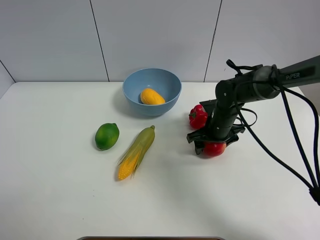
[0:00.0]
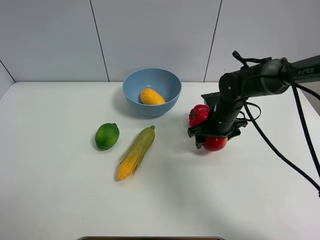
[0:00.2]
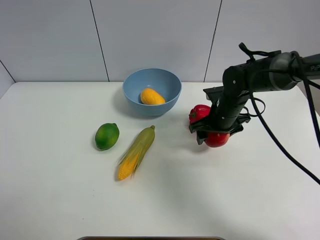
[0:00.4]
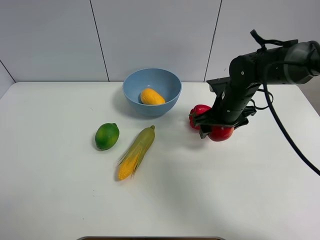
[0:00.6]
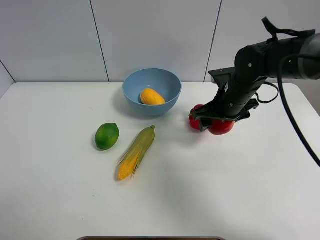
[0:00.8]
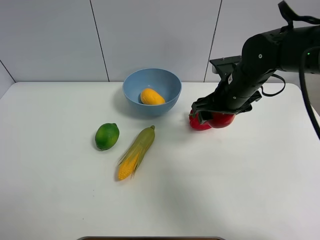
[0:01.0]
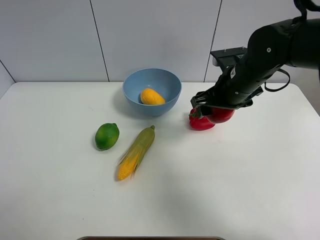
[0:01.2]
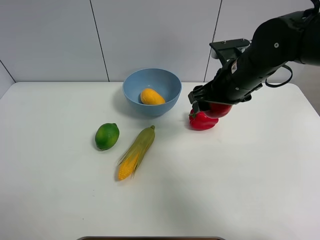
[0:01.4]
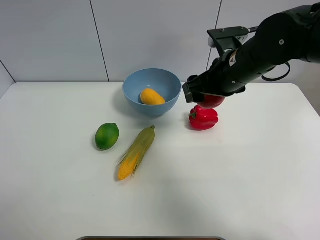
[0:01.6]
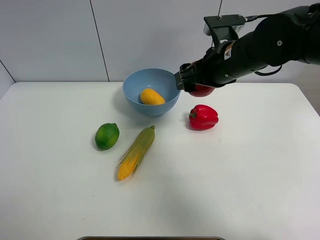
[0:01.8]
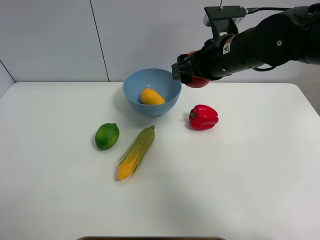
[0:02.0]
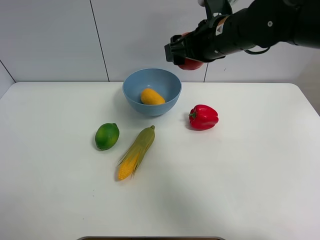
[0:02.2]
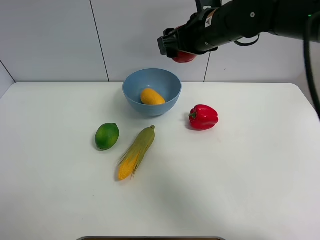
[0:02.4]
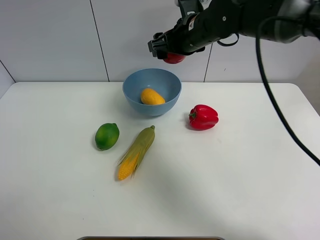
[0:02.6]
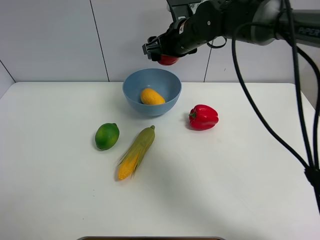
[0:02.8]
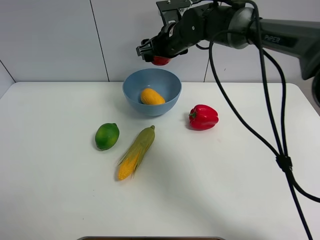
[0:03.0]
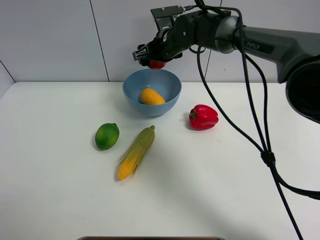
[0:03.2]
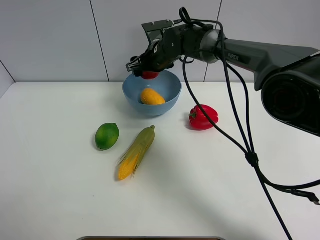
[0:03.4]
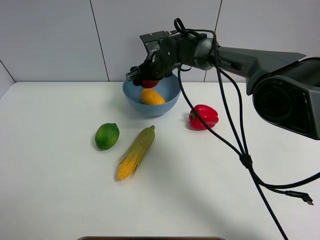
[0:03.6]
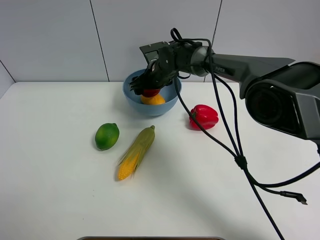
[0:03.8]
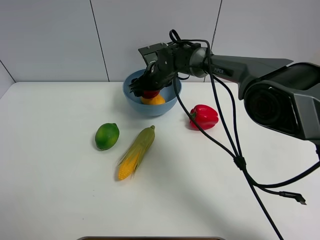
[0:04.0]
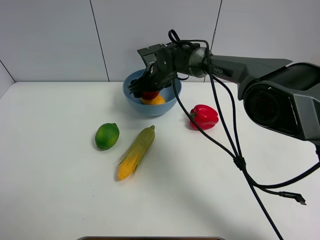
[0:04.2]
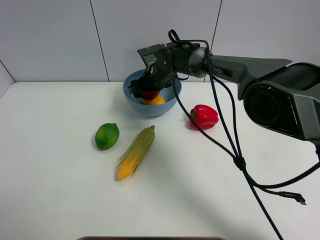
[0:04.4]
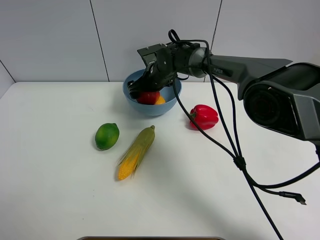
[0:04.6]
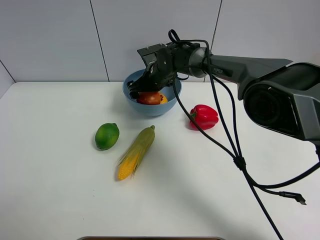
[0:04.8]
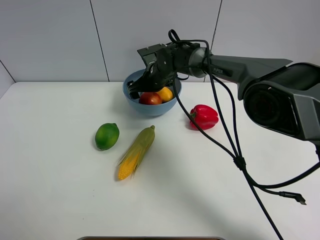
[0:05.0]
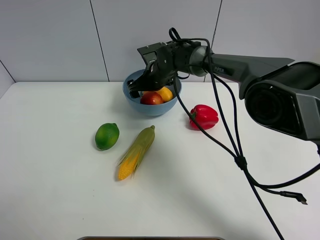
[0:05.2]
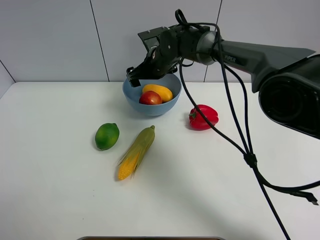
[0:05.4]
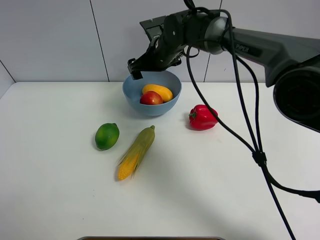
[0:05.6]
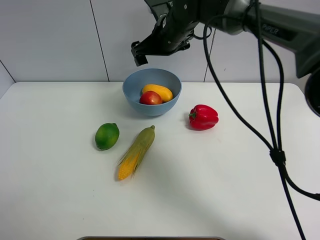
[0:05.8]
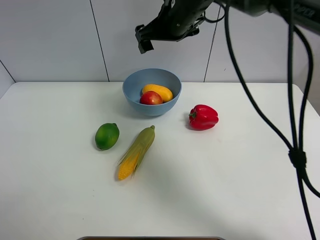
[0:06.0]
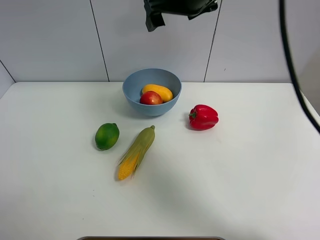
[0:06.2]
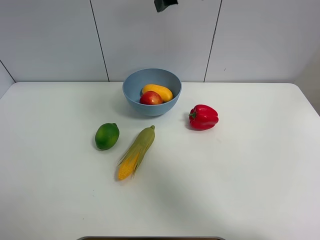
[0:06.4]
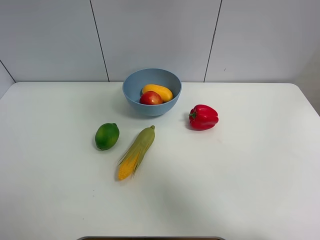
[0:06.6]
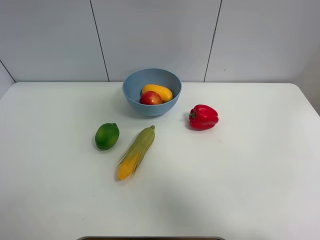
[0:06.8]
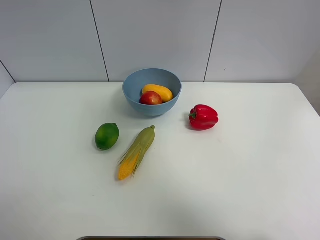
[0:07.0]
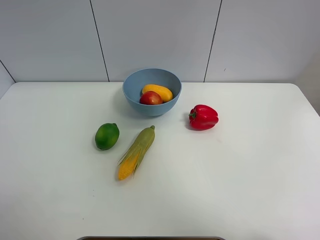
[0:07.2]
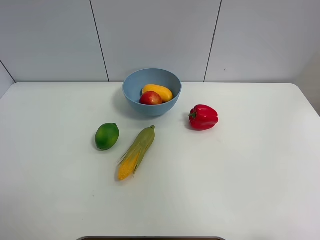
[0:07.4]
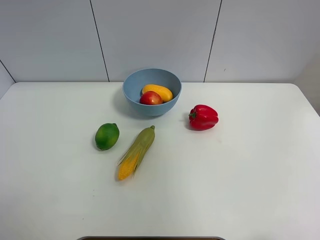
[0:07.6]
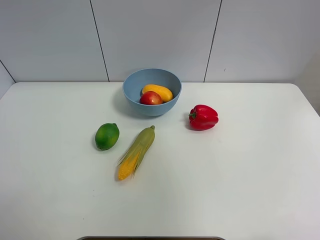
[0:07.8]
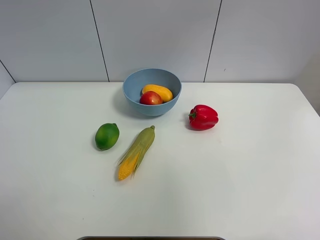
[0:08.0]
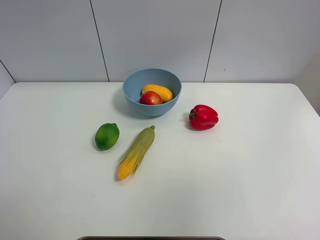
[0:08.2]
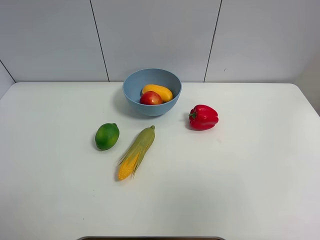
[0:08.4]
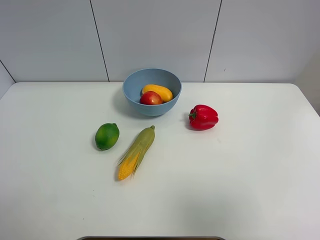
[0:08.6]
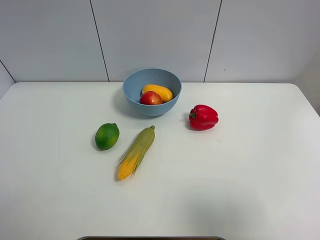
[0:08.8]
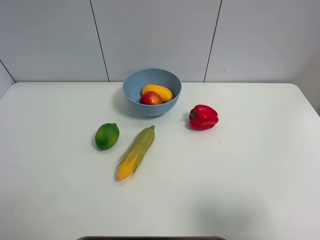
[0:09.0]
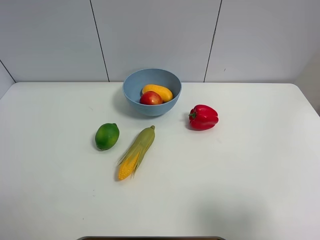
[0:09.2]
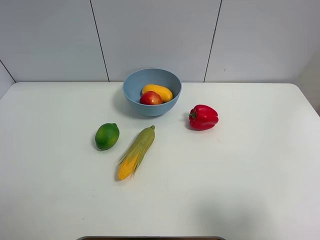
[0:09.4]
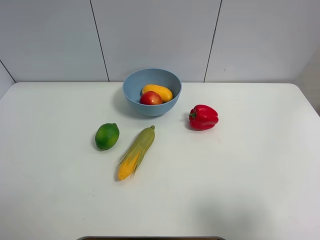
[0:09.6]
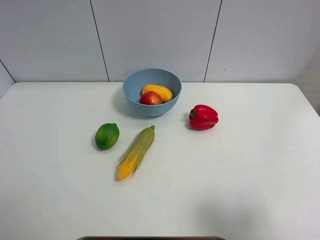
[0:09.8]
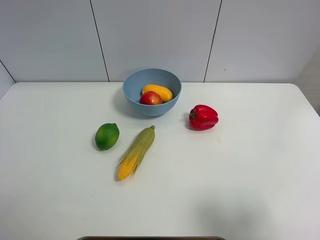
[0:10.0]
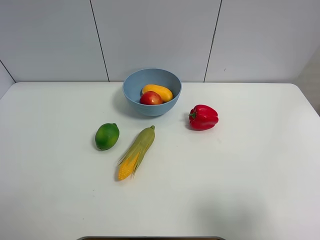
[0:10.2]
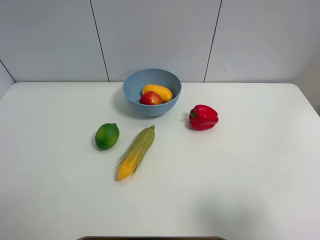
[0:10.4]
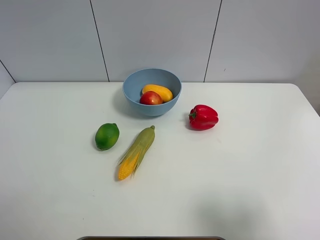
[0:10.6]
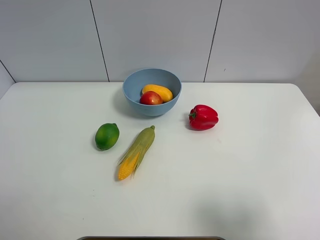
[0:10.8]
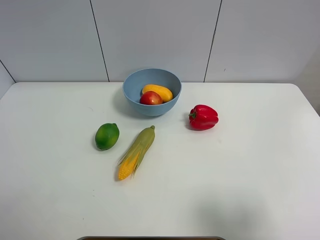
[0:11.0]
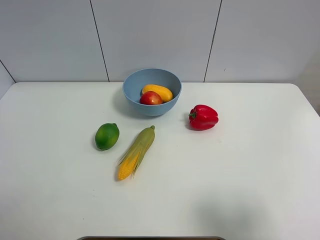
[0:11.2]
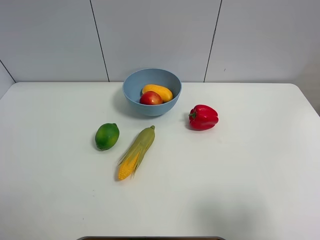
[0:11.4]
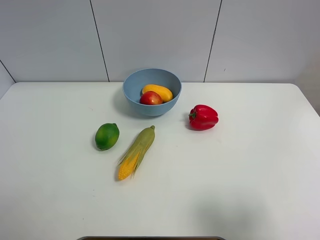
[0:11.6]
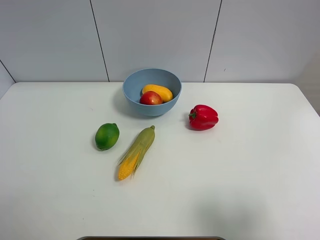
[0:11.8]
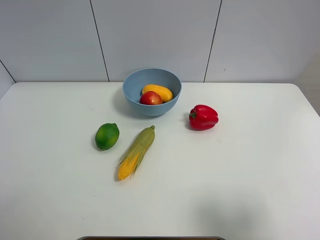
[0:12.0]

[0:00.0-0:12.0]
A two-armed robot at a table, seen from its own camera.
Task of the whole recording: Put the three fruits on the table into a bowl.
Step, 0:00.0 to 0:05.4: Place the pomegranate in the blue bowl with right gripper.
0:00.0 to 0:01.6: The right gripper shifts some 15 cm upward.
0:01.6 to 0:03.0: The right gripper shifts some 20 cm forward and to the left.
0:03.0 to 0:04.4: The right gripper shifts some 10 cm downward.
0:04.4 to 0:06.0: The right gripper moves upward, about 20 cm, and opens its fingers.
0:06.0 to 0:07.6: The right gripper goes approximately 50 cm backward, upward and to the right.
0:07.6 to 0:09.0: The right gripper heads downward, covering some 30 cm.

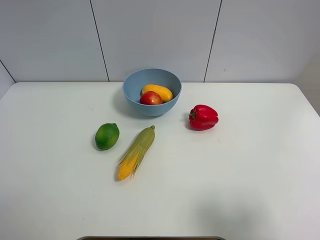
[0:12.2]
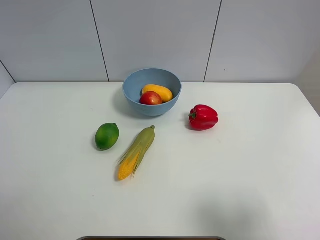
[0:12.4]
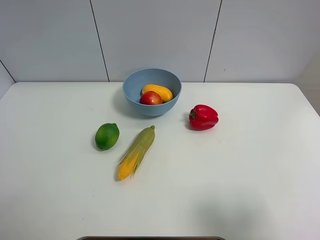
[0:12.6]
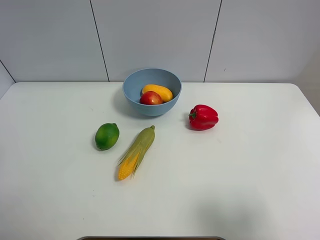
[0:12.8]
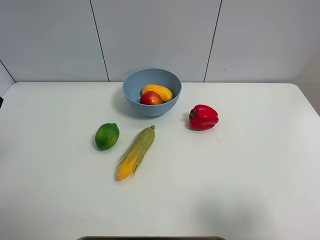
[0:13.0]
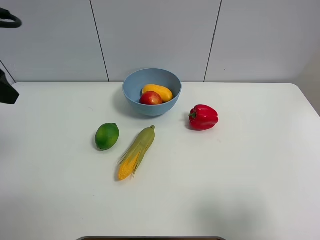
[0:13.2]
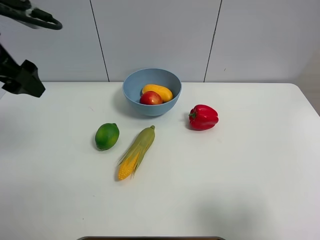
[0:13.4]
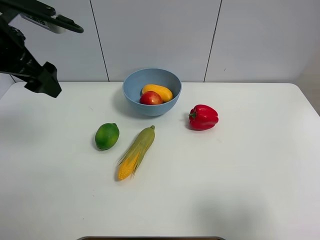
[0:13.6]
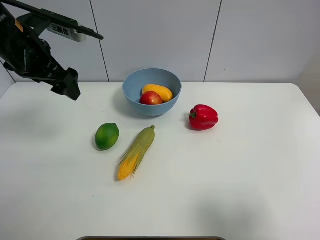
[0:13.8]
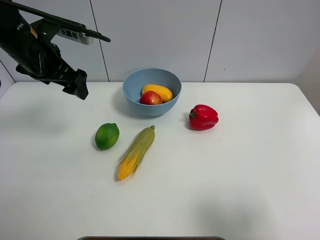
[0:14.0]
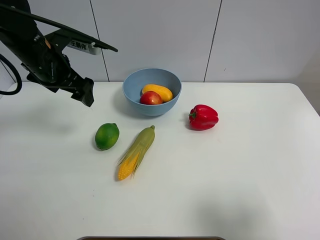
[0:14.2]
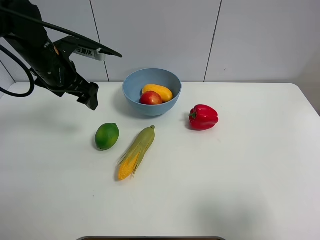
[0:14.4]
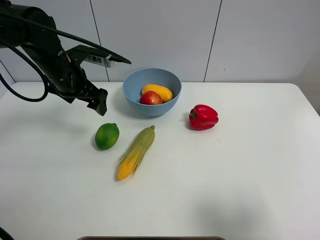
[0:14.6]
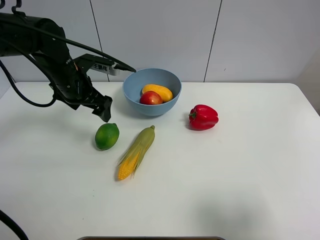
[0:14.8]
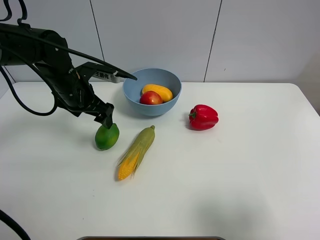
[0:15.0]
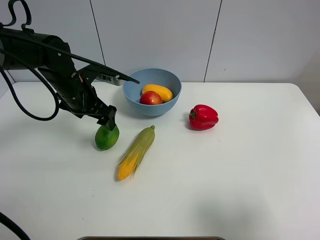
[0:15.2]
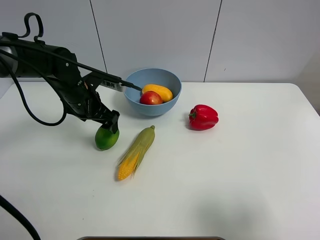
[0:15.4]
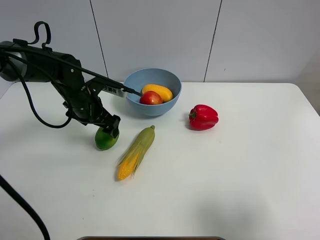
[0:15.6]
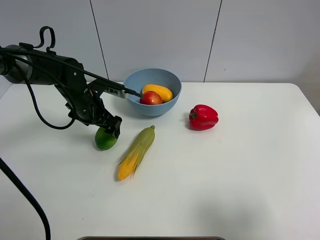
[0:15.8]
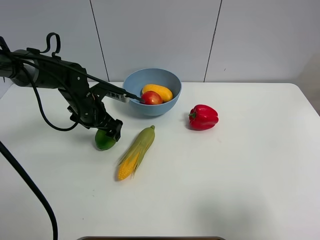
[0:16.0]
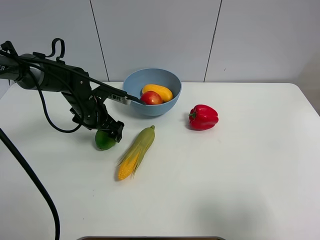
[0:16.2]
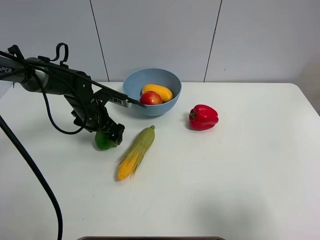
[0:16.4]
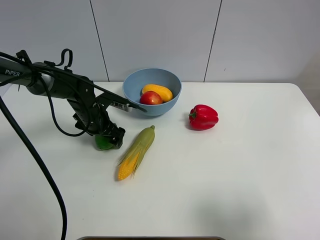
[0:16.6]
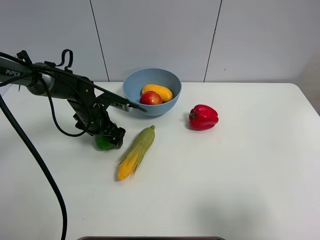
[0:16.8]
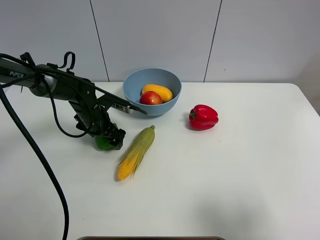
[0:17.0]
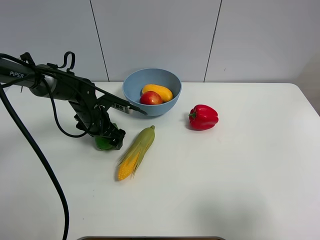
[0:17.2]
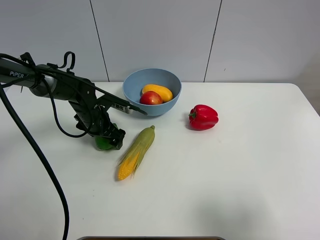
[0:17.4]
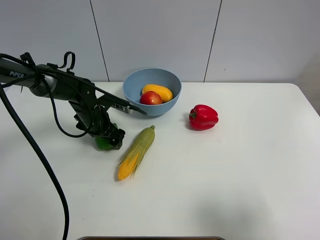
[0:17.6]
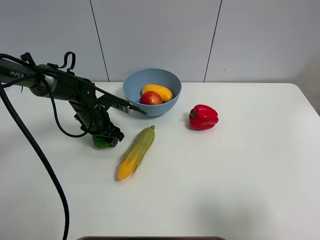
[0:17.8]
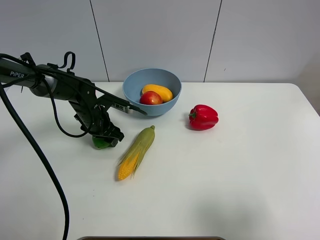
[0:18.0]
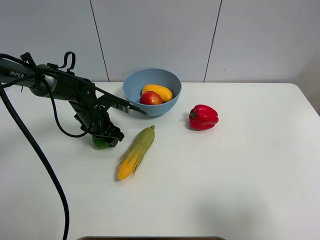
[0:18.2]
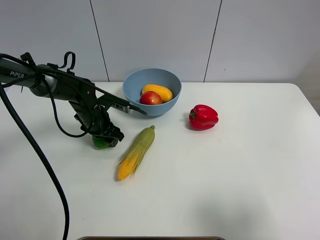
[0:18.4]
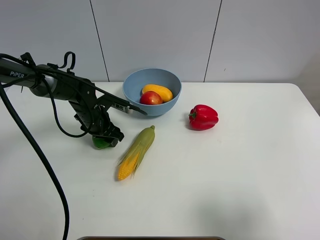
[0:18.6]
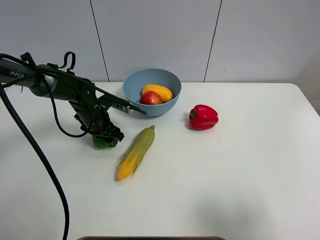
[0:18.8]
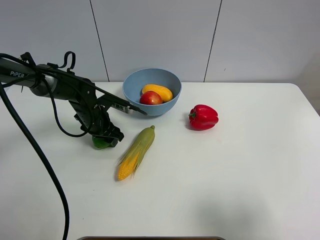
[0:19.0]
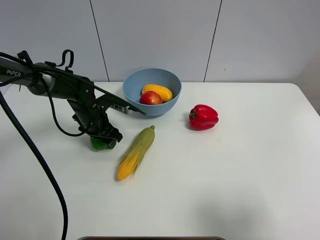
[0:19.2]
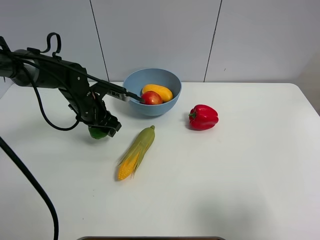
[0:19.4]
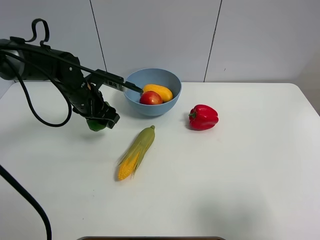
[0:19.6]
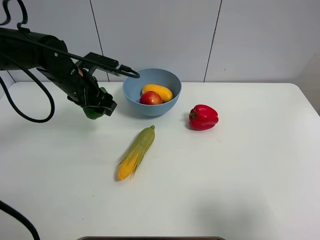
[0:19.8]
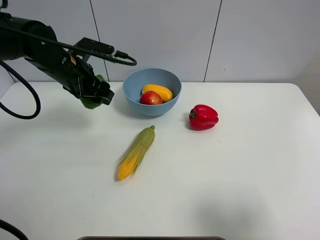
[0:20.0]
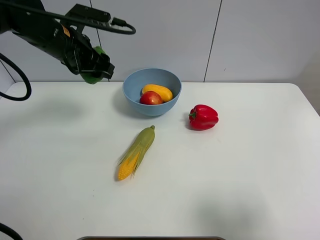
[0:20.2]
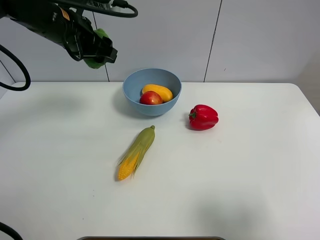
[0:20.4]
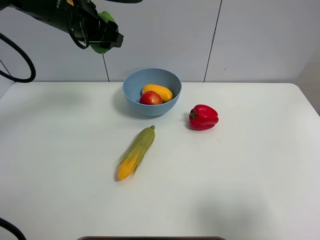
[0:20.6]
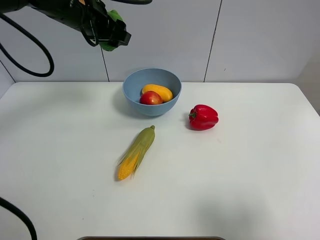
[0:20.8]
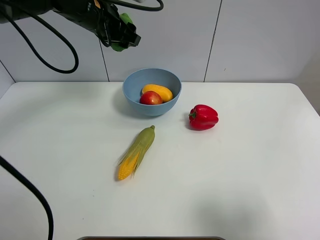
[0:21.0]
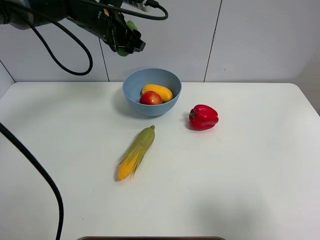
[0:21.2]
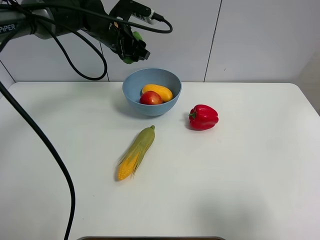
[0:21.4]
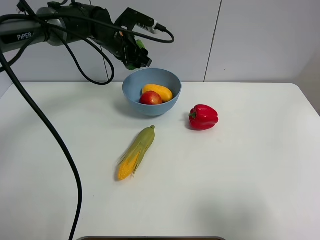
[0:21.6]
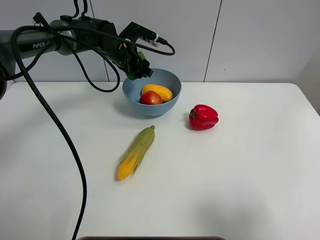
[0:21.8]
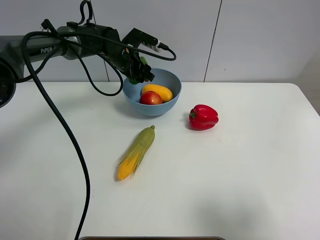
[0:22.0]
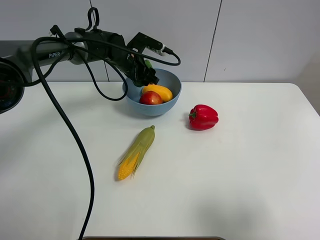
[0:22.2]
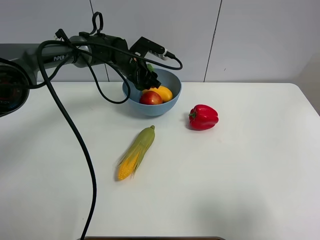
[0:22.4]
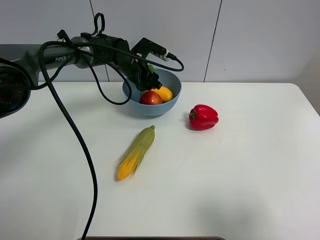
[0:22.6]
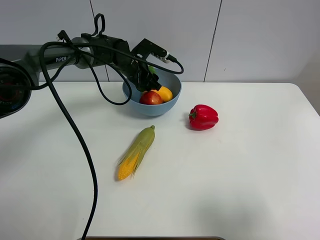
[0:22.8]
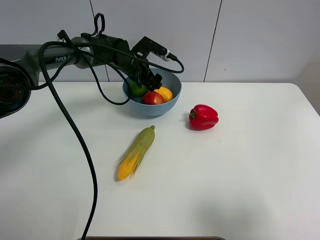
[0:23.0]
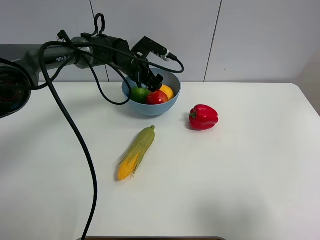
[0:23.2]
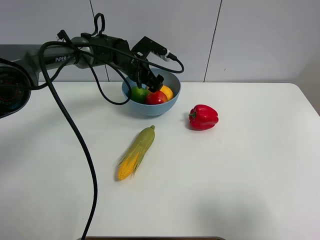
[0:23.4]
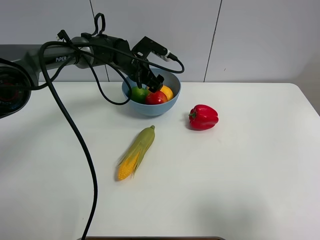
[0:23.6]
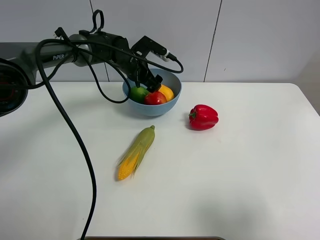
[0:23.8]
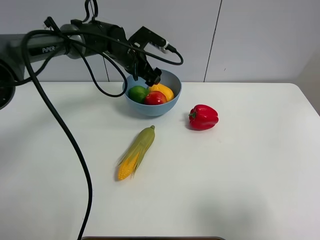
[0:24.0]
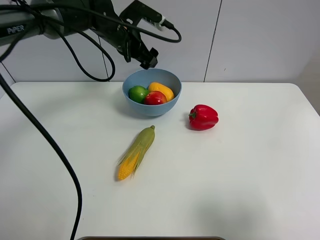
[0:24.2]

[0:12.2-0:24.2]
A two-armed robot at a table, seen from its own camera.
Task of the whole recording: Put the three fruits on the table into a bowl.
Step, 0:12.2 to 0:17.8: Grasp the green lemon with left gripper.
Step, 0:18.0 to 0:23.4: Place the green lemon in the blue bowl with left gripper.
0:12.2 to 0:13.8: The left gripper is displaced forward and to the right by some 30 cm.
0:13.8 to 0:15.2: The left gripper is displaced downward by roughly 10 cm.
0:15.2 to 0:16.6: The left gripper moves downward, roughly 10 cm.
0:16.6 to 0:18.2: The left gripper closes.
0:18.2 to 0:19.8: The left gripper shifts about 15 cm upward.
0:19.8 to 0:21.2: The left gripper shifts about 15 cm forward, upward and to the right.
0:21.2 to 0:22.6: The left gripper heads downward, covering approximately 10 cm.
0:22.6 to 0:24.2: The left gripper travels upward by about 10 cm, and opens.
